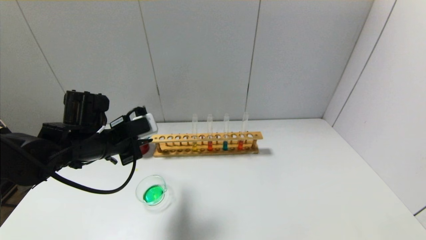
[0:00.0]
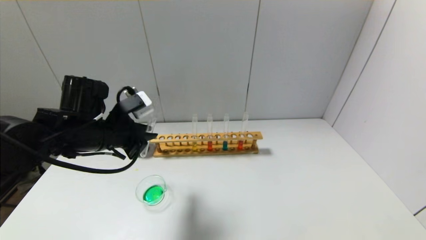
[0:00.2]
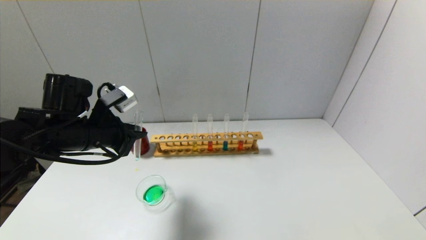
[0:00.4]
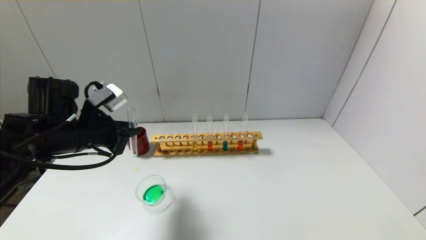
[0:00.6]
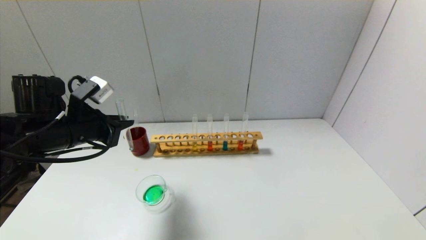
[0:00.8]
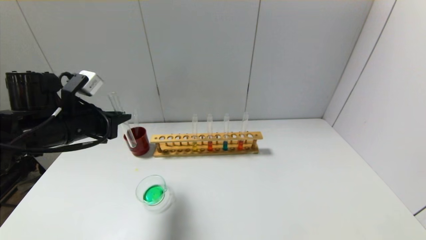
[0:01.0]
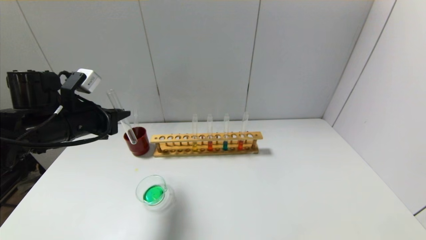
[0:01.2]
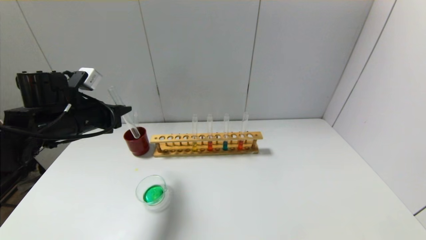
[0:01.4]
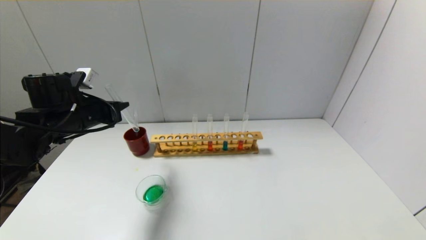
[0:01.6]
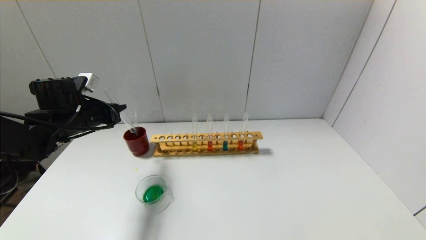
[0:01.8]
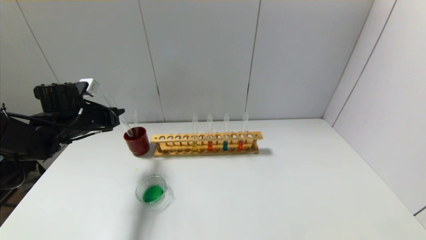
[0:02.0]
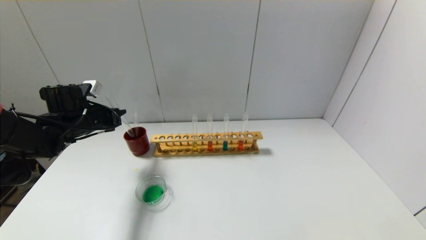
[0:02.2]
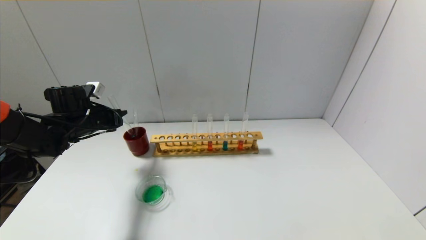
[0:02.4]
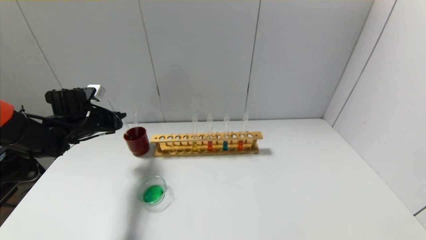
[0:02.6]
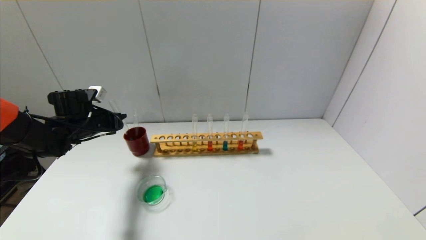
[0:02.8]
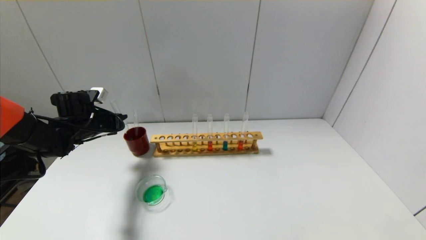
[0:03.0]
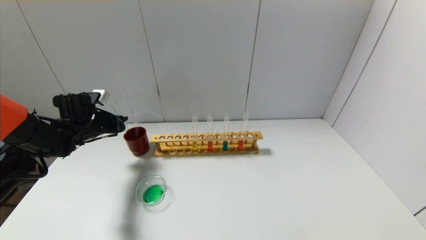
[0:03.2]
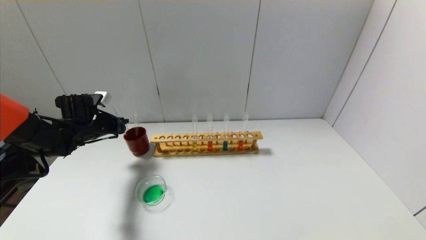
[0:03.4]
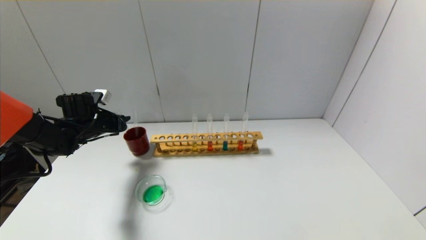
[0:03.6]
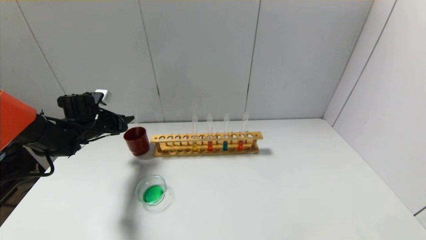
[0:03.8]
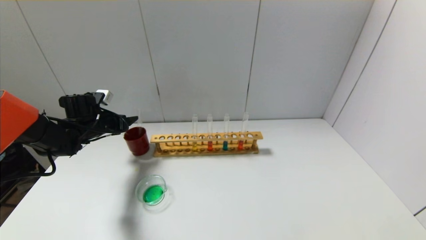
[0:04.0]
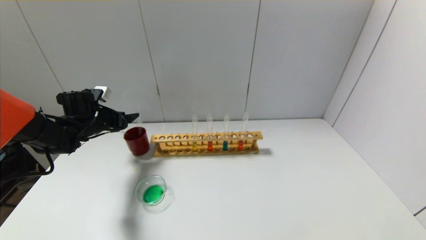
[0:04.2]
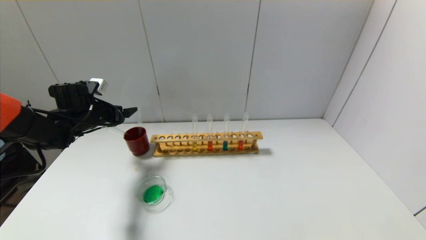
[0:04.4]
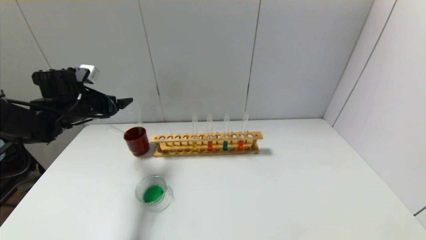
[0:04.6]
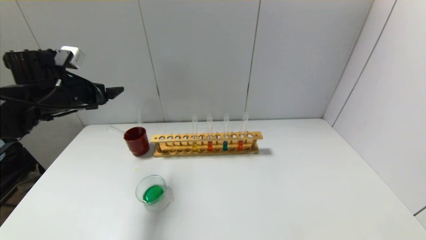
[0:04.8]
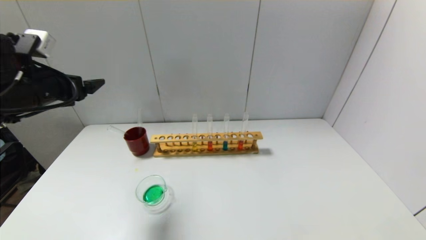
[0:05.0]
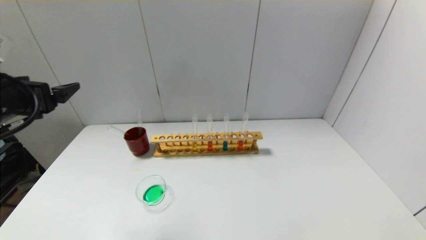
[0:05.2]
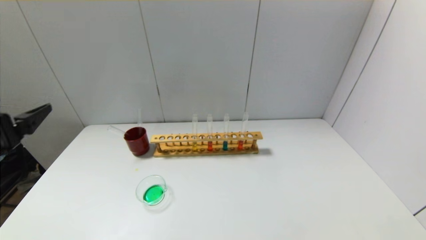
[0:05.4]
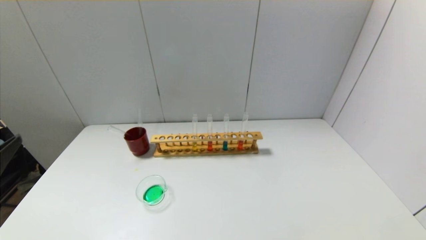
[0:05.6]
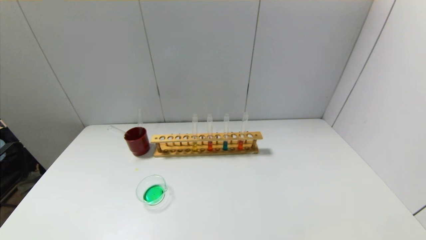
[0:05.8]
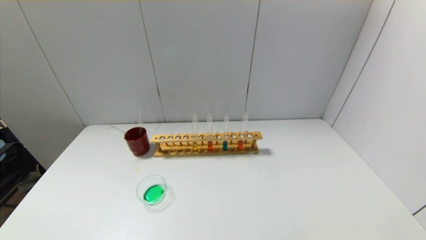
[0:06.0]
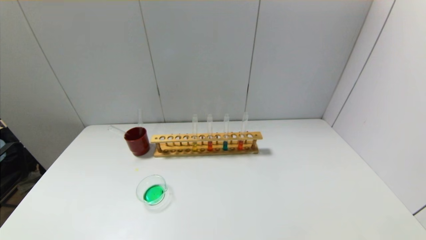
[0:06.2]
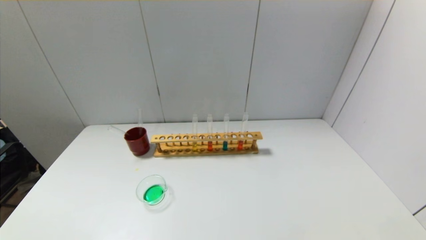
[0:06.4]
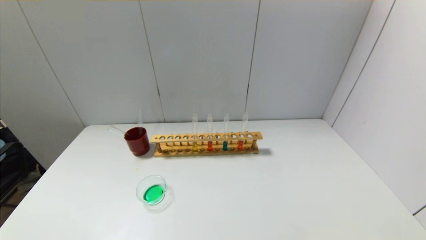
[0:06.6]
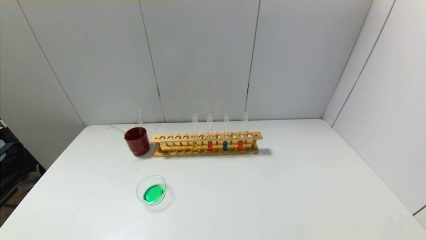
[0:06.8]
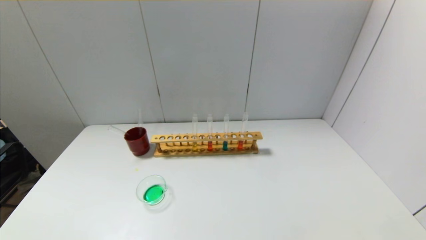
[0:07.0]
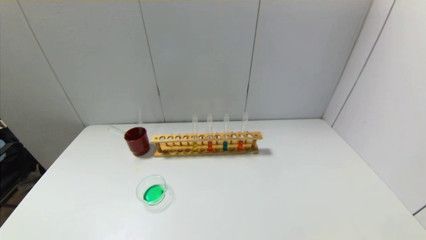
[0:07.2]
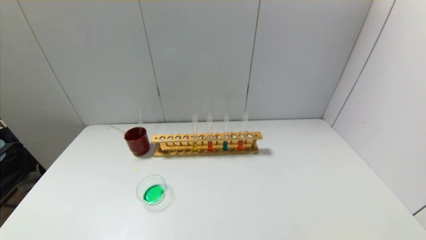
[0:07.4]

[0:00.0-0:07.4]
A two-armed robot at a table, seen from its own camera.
Step, 0:00.0 to 0:03.8: Place the test tube into the brown cup with the left gripper.
0:00.0 to 0:01.4: The left gripper shifts approximately 5 cm to the left.
0:01.4 to 0:03.0: The left gripper is displaced forward, downward and to the left by approximately 15 cm.
0:03.0 to 0:04.4: The left gripper opens.
0:04.4 to 0:06.0: The left gripper is displaced backward by about 40 cm.
